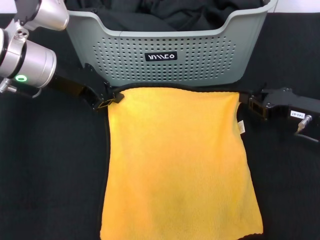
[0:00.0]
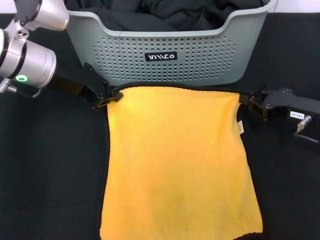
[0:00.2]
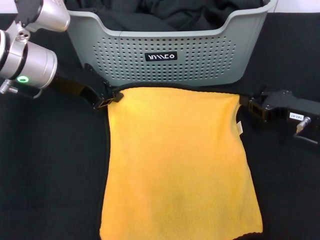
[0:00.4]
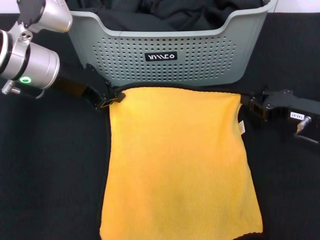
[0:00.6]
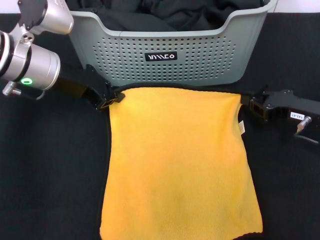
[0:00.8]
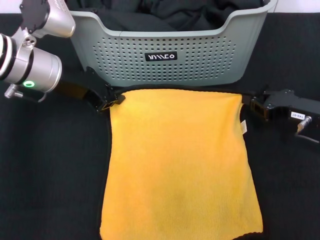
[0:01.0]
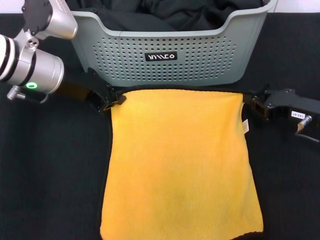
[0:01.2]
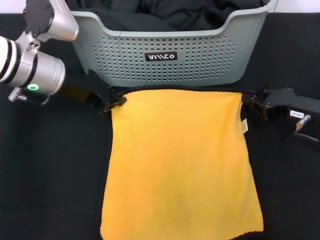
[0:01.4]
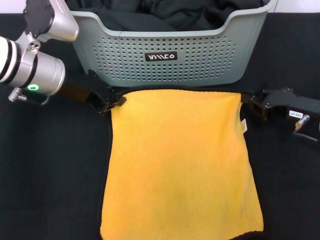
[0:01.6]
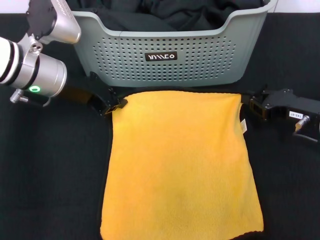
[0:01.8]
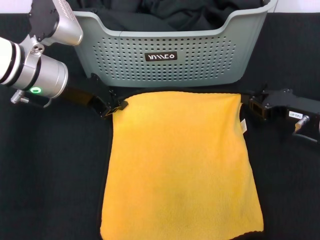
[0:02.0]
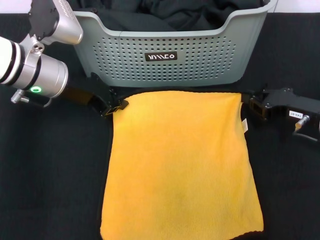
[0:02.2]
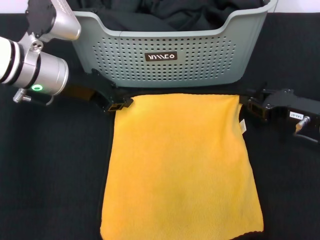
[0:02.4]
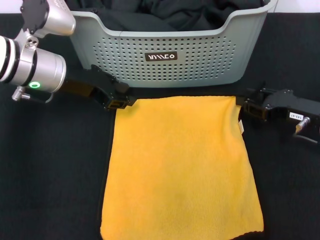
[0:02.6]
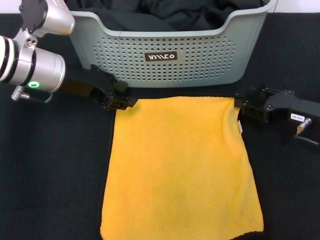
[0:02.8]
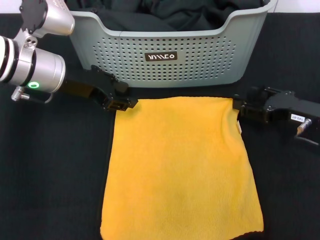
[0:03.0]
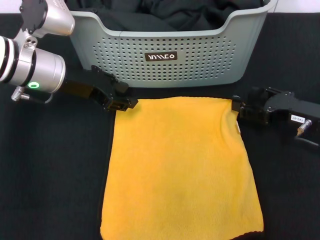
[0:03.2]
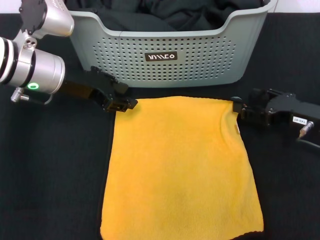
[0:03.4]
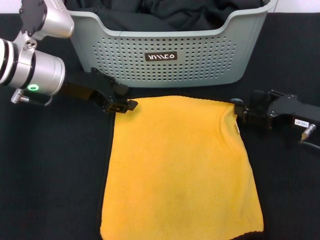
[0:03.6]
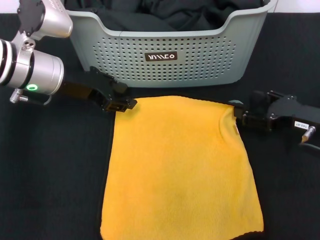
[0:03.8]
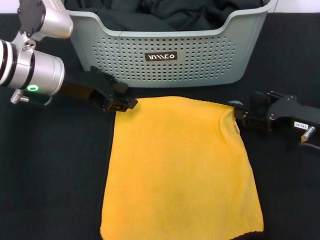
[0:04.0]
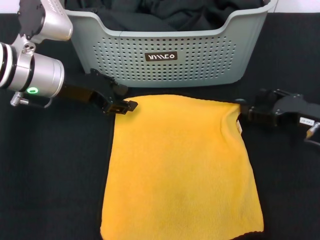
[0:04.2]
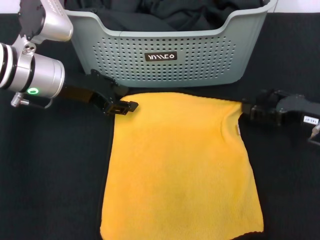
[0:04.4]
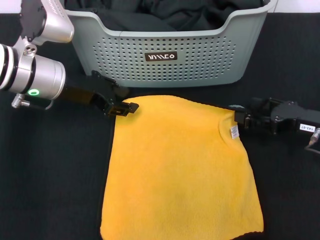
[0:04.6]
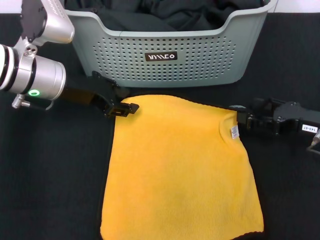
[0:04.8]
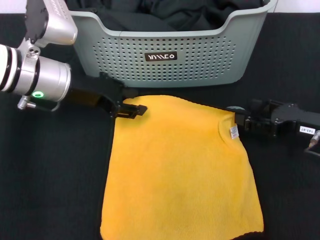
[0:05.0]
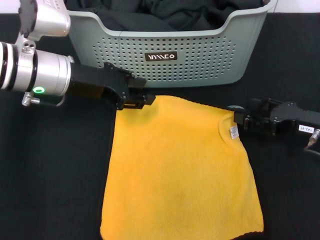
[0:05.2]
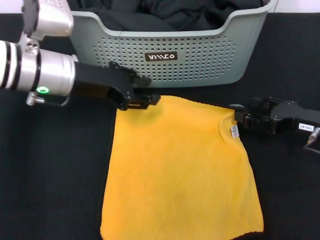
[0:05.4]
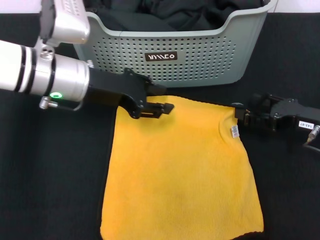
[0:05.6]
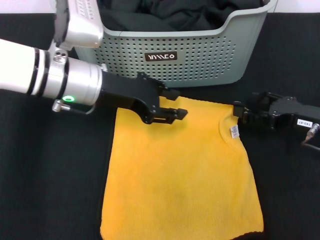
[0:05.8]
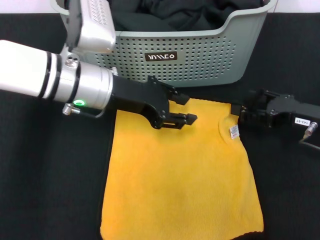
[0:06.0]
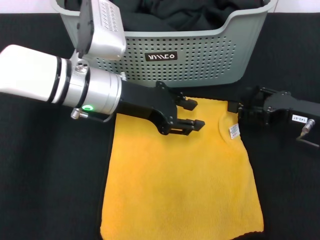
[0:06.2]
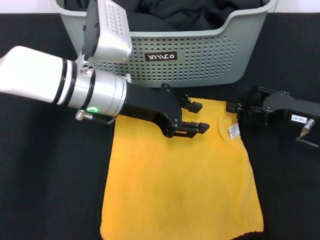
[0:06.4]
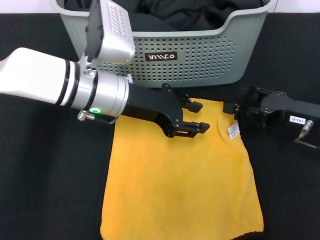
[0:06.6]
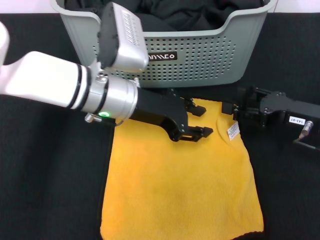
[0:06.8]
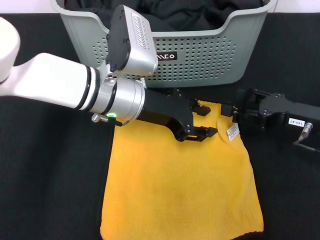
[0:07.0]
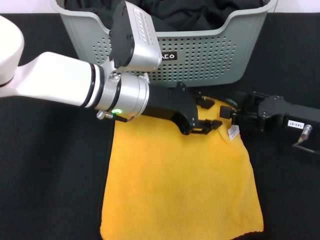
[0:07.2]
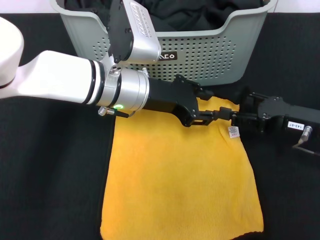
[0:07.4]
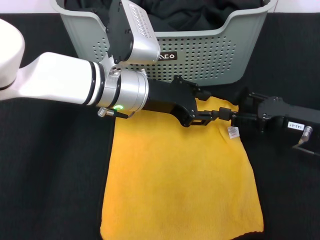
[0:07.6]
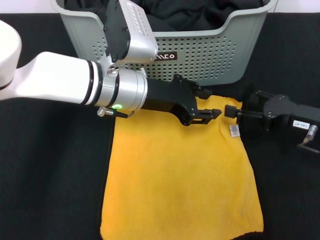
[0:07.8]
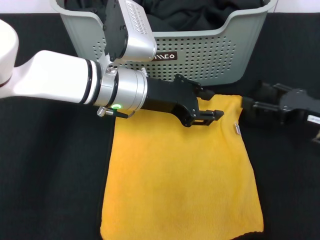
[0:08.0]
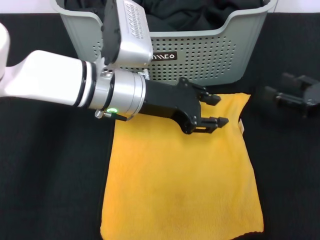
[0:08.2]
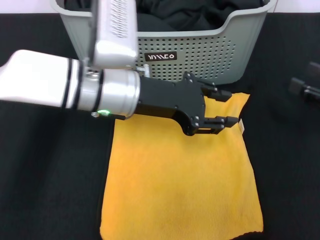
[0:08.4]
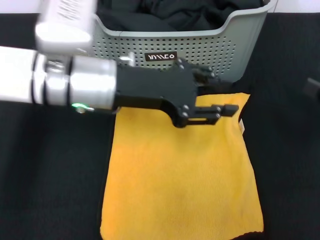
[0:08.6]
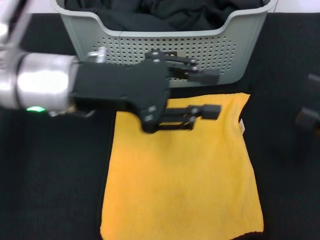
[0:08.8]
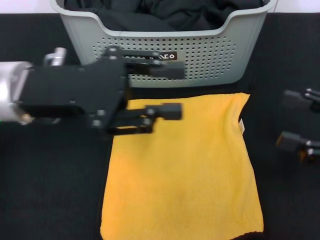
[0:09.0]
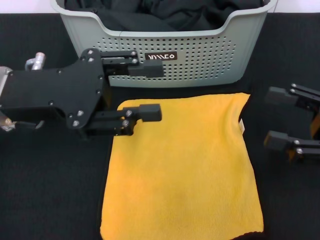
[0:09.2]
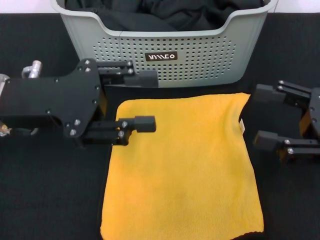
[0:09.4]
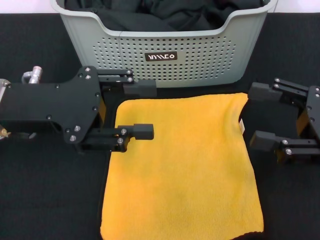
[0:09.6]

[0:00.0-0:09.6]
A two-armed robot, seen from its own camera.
Task of the whole recording: pick up the towel from the storage box and lay it flat on the black tablecloth.
Step, 0:00.0 to 0:08.0: Spread the towel flat with the right gripper.
0:00.0 to 0:01.6: The grippers stay close to where they were, moving slightly.
0:01.6 to 0:03.2: The right gripper opens its fingers; the left gripper opens up.
0:03.2 to 0:04.8: The grippers stay close to where they were, moving slightly.
0:04.8 to 0:06.4: The left gripper travels to the right by approximately 10 cm.
0:06.4 to 0:08.0: The grippers stay close to where they were, moving slightly.
0:08.0 to 0:09.6: The right gripper goes about 10 cm upward and backward. The left gripper goes roughly 15 cm to the left and backward.

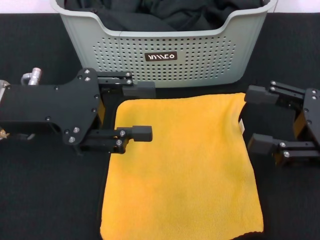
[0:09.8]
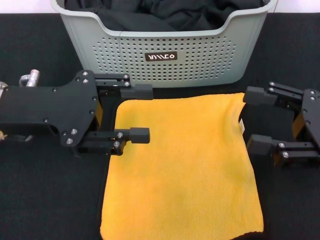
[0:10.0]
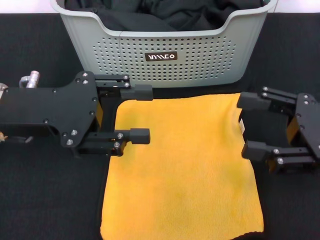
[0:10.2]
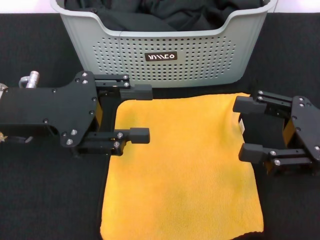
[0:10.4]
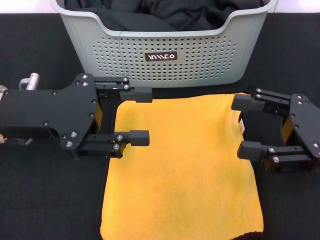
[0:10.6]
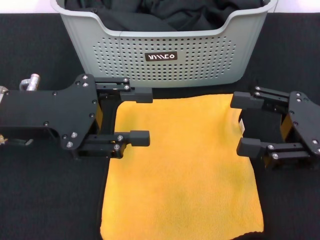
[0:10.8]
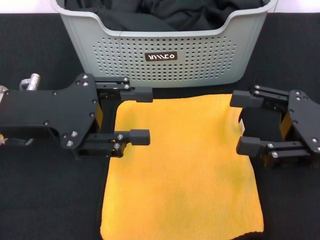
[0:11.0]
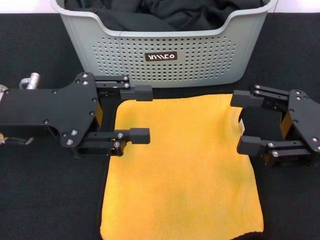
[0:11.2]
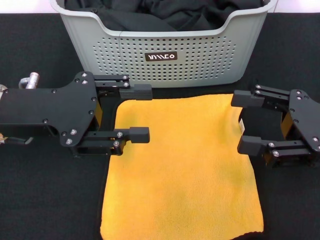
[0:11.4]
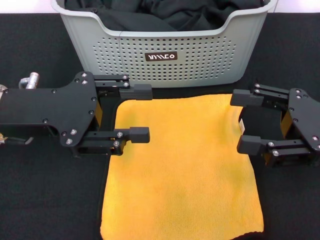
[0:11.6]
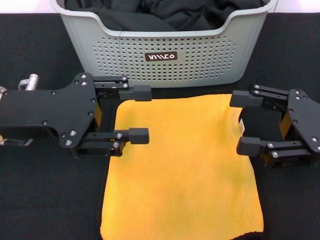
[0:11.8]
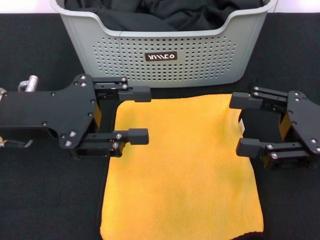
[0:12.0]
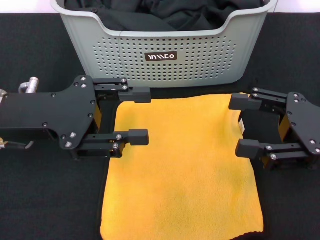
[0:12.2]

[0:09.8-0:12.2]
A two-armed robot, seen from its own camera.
Task of the whole recording: pick up the towel from the storage box and lay it flat on the black tablecloth.
0:09.8 to 0:11.0: The grippers make only small movements.
0:11.0 to 0:12.2: Both grippers stay put.

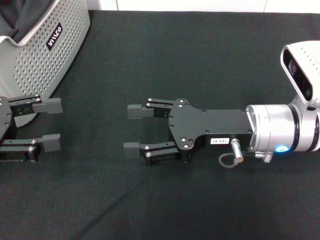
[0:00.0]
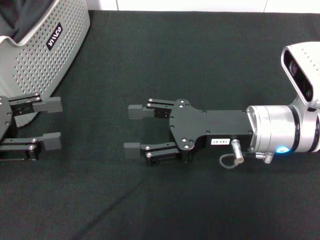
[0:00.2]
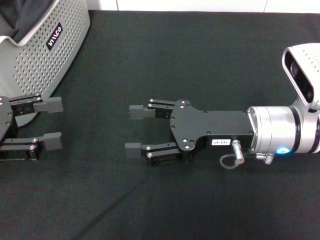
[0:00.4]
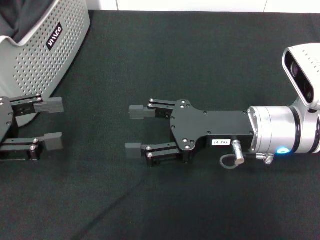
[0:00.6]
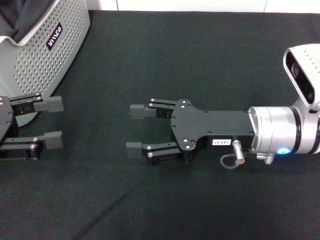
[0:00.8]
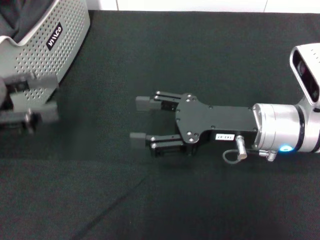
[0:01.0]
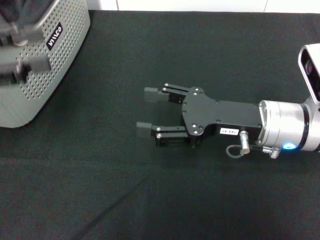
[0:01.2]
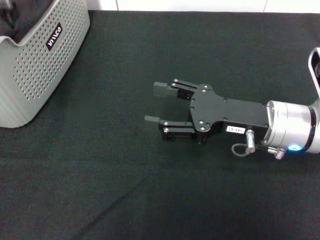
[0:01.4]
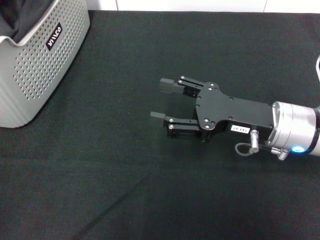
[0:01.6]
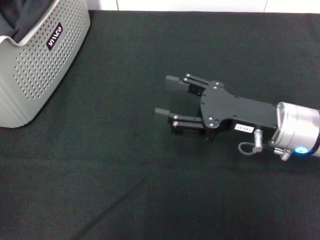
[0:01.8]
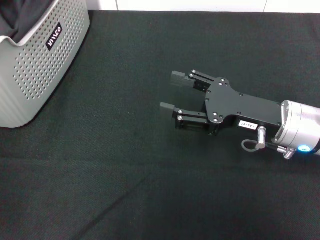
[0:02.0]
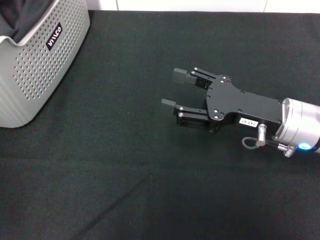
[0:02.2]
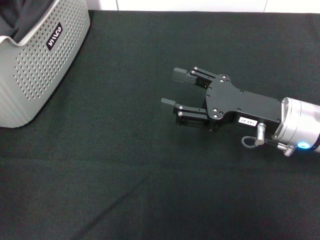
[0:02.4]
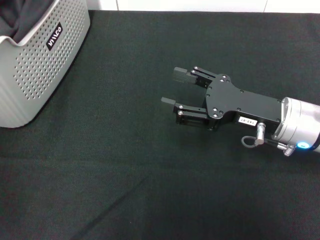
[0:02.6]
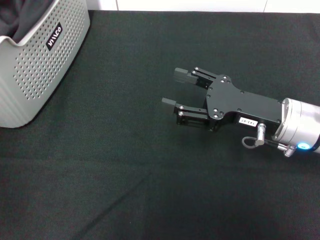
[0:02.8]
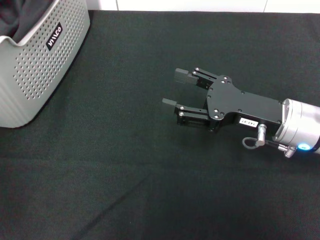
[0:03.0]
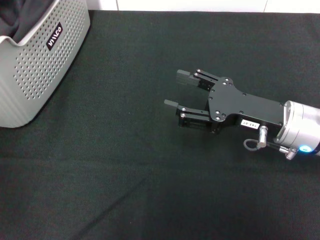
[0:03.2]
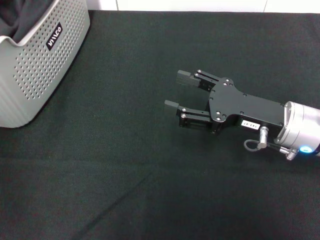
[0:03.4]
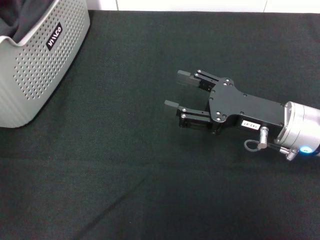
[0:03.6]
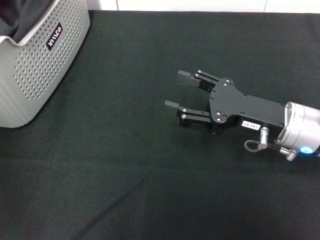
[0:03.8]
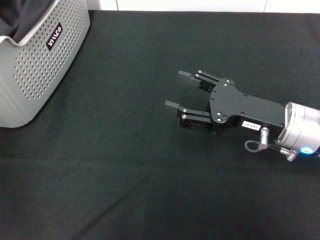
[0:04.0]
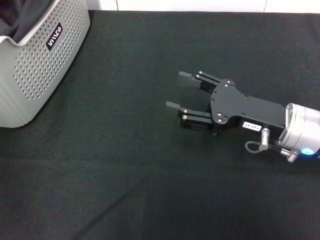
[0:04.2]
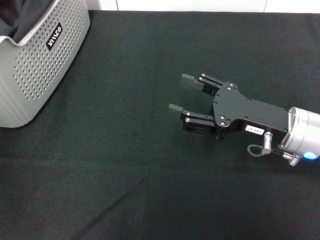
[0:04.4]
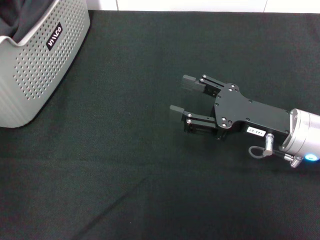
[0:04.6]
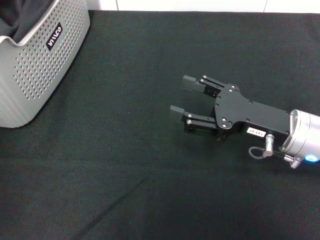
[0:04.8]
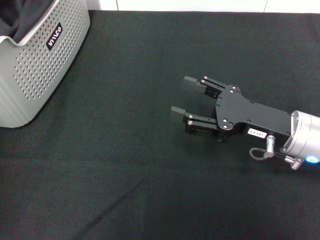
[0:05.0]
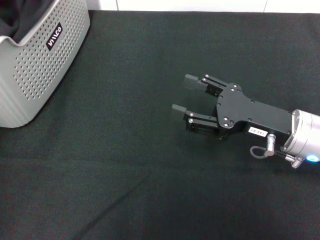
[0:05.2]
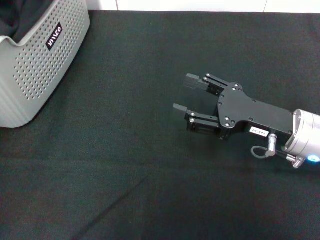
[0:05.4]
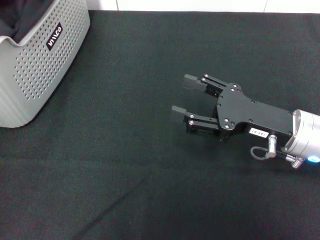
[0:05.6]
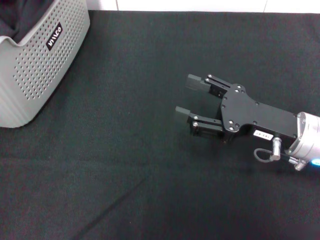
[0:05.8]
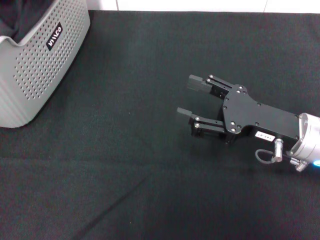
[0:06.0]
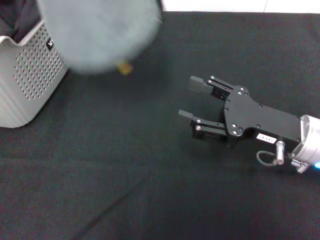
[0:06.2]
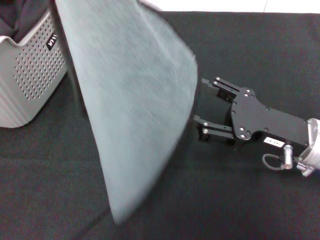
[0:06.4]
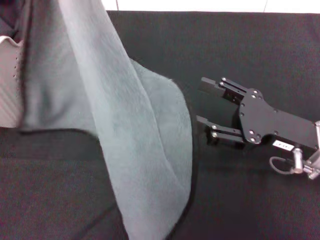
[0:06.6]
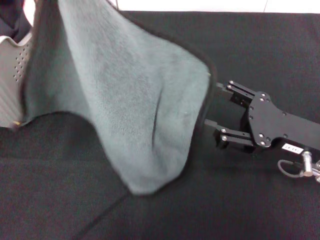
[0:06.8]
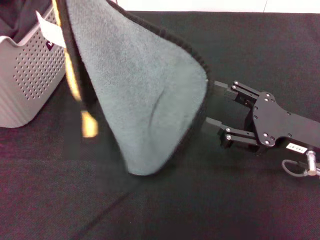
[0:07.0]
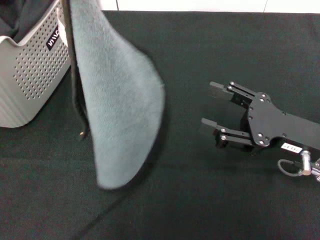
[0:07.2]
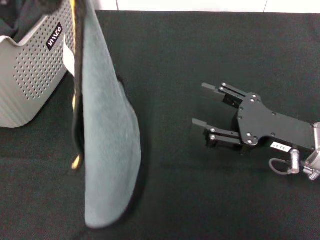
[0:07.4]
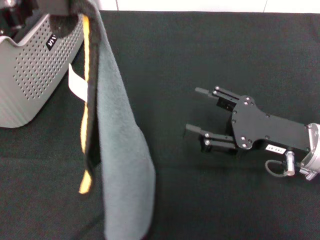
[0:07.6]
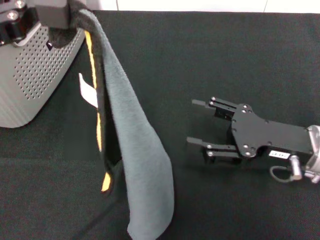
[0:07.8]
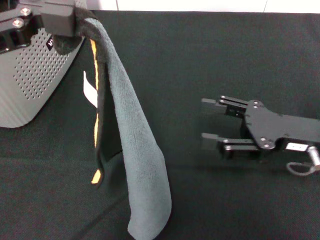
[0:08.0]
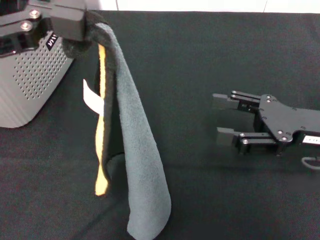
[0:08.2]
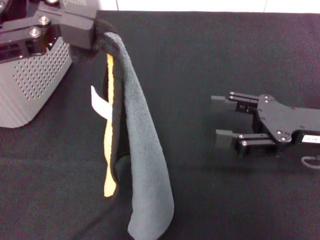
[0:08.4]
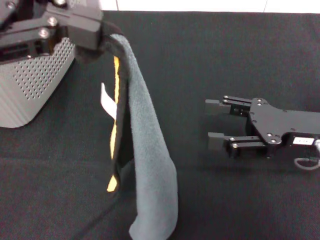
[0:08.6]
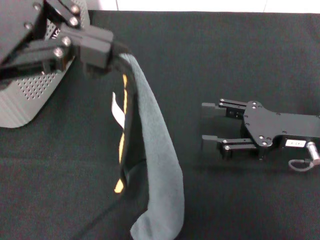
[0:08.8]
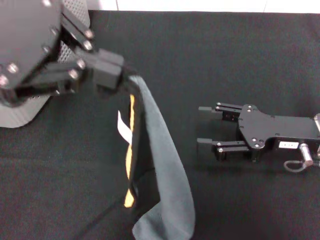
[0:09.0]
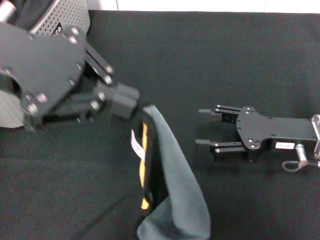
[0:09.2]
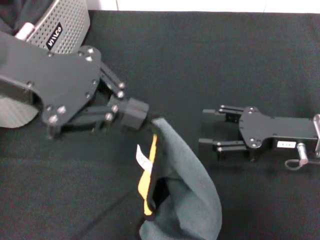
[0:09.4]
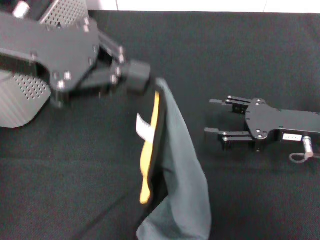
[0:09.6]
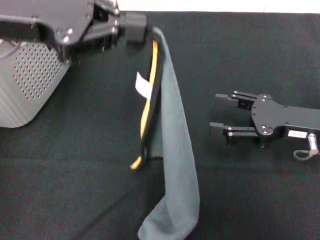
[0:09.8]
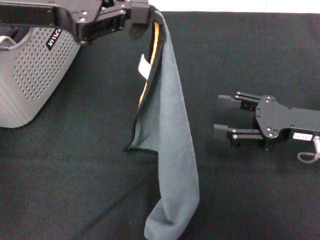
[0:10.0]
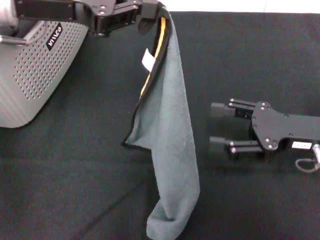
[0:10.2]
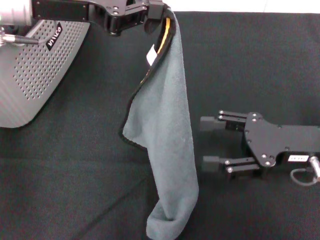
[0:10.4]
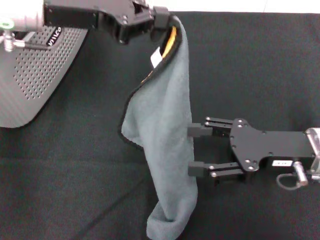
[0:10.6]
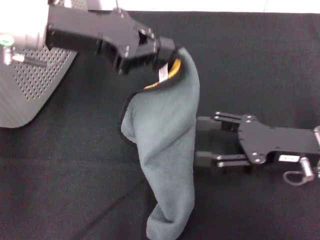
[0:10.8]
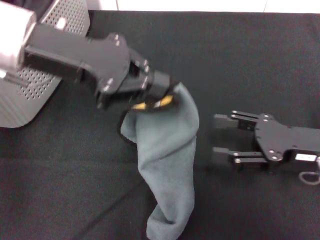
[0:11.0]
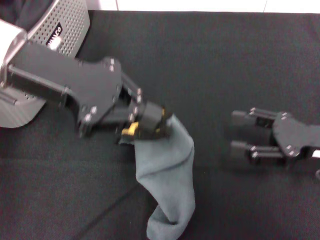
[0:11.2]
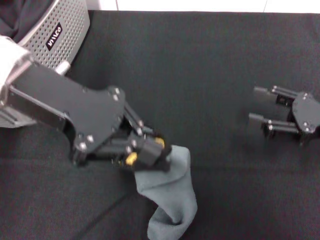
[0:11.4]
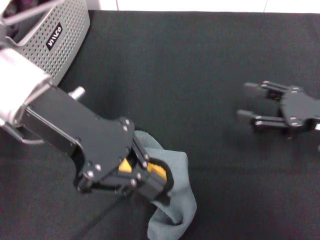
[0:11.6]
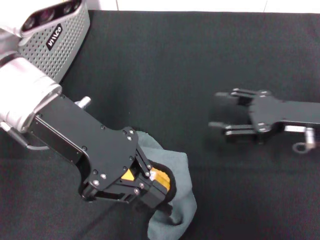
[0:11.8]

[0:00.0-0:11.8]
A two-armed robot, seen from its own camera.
Task of the whole recording: pick up the towel from the storage box and lay it flat on the black tablecloth.
Step, 0:00.0 to 0:04.4: Pick up a towel with the left gripper.
0:00.0 to 0:01.4: The left gripper shifts roughly 15 cm upward.
0:01.4 to 0:03.0: The left gripper shifts about 10 cm forward.
0:03.0 to 0:04.4: The left gripper closes up.
0:04.4 to 0:06.0: The left gripper goes approximately 20 cm backward, upward and to the right.
0:06.0 to 0:07.4: The left gripper shifts some 5 cm downward.
0:08.8 to 0:10.4: The left gripper travels downward and forward by about 10 cm.
0:10.4 to 0:11.8: The right gripper reaches about 5 cm to the right, then returns; the left gripper shifts about 5 cm backward.
